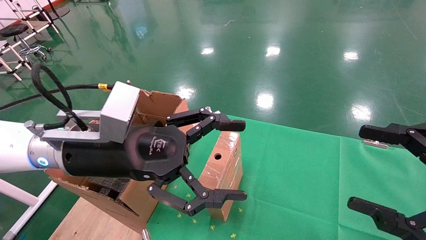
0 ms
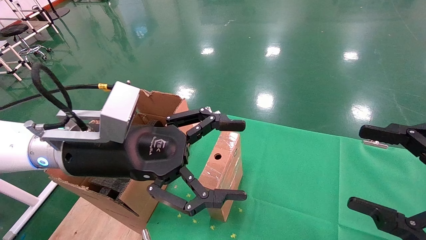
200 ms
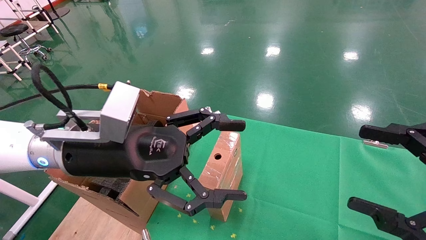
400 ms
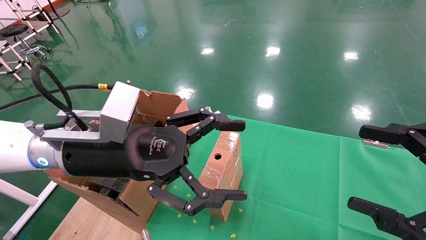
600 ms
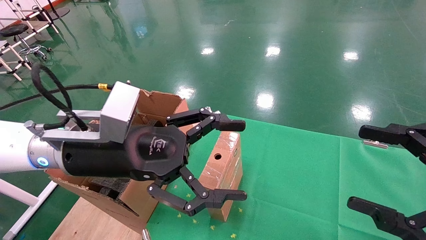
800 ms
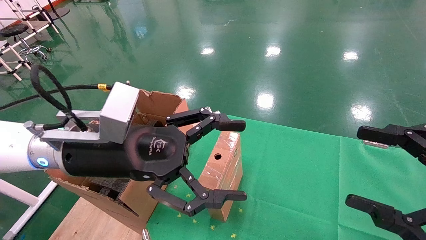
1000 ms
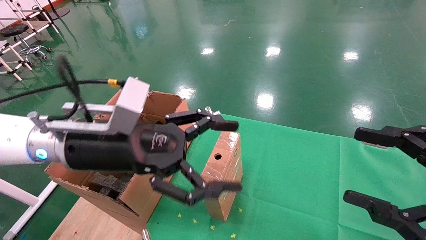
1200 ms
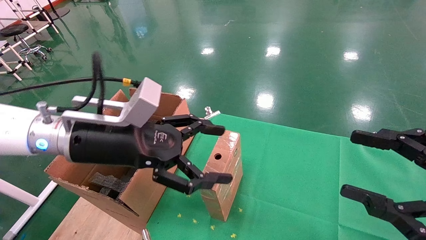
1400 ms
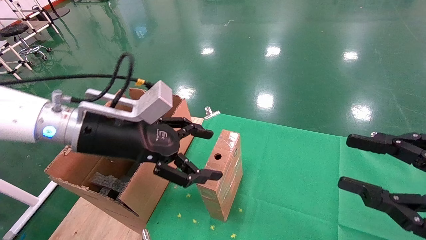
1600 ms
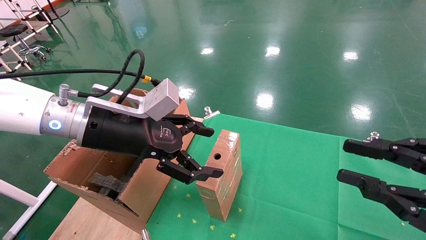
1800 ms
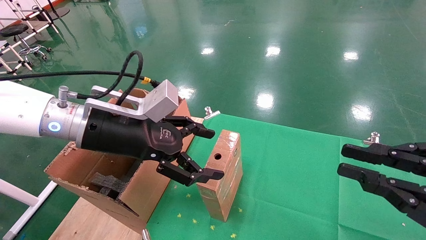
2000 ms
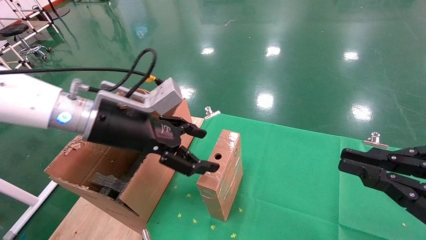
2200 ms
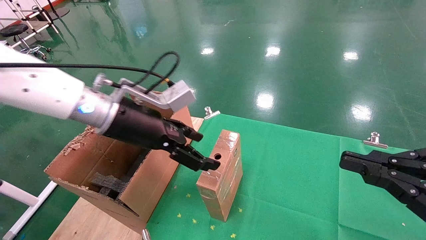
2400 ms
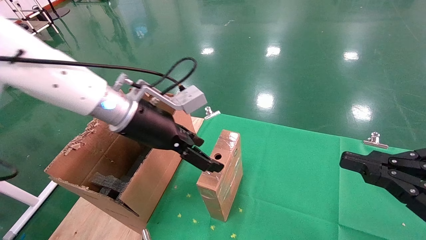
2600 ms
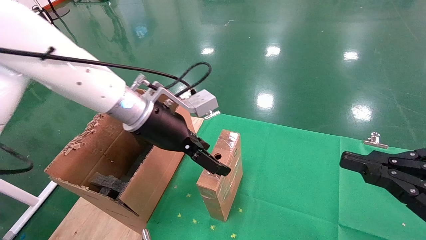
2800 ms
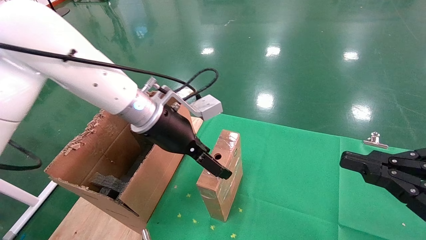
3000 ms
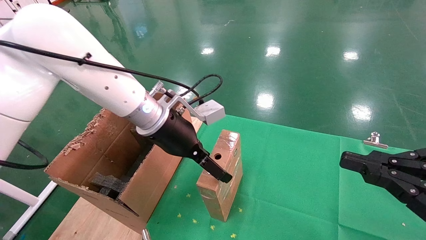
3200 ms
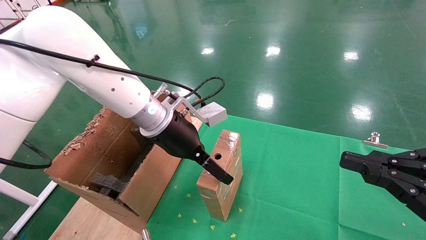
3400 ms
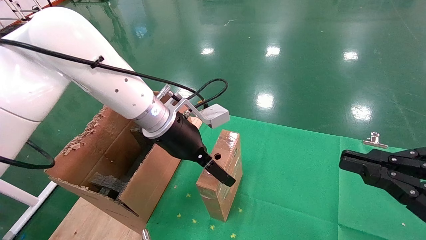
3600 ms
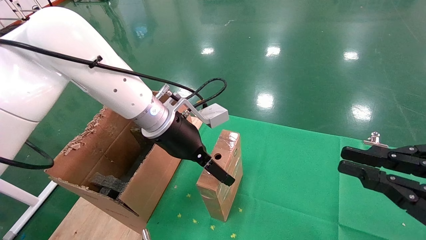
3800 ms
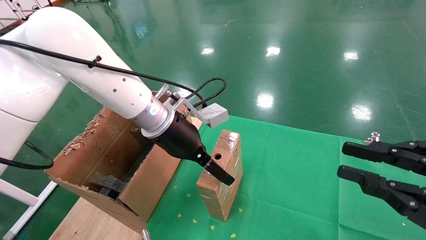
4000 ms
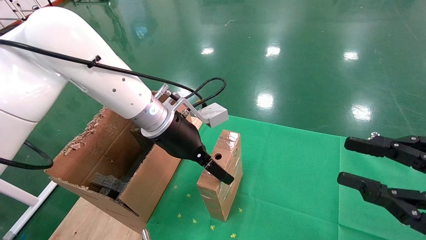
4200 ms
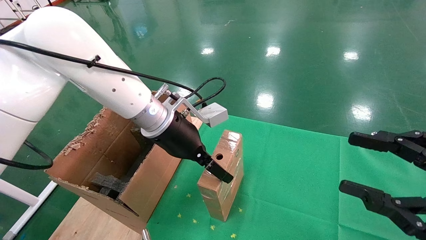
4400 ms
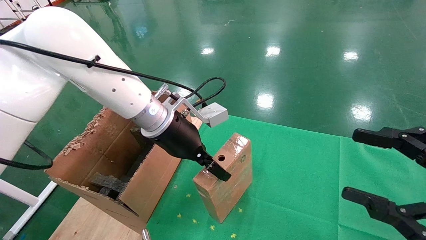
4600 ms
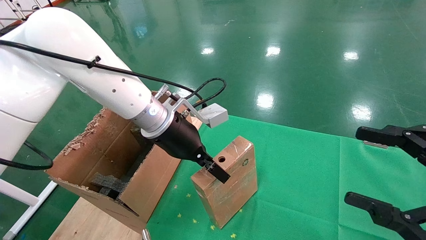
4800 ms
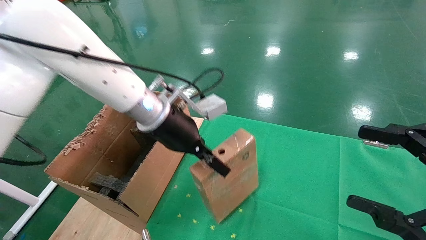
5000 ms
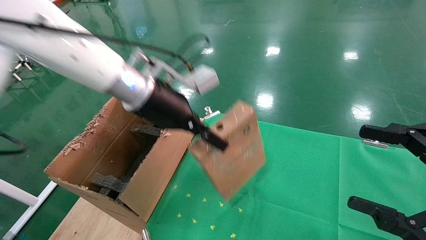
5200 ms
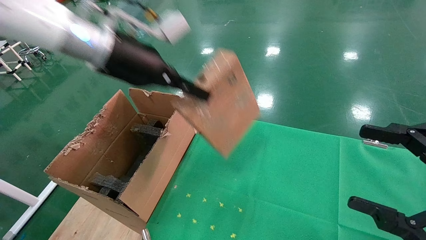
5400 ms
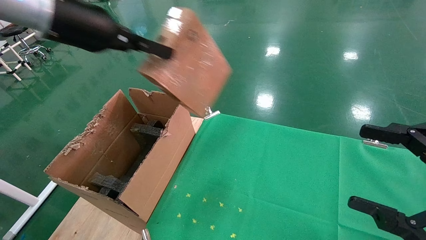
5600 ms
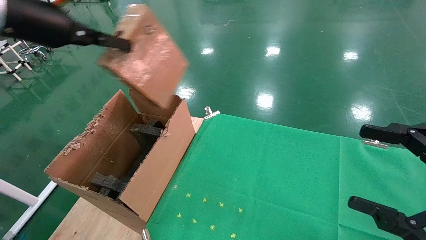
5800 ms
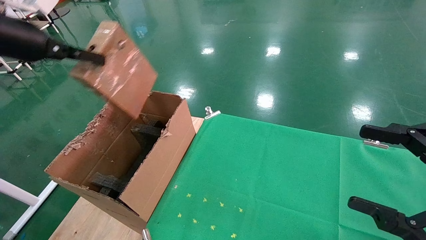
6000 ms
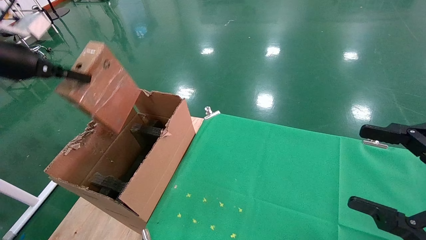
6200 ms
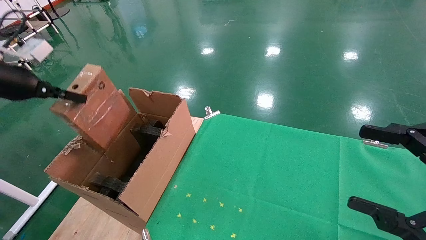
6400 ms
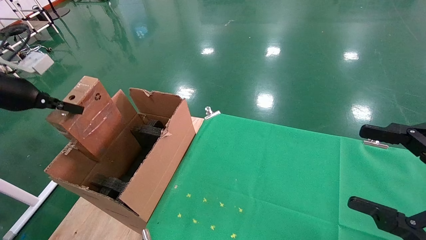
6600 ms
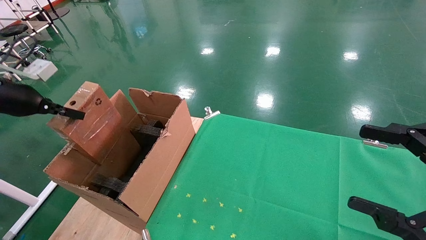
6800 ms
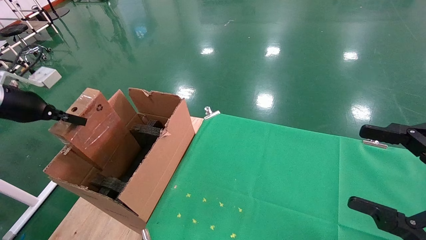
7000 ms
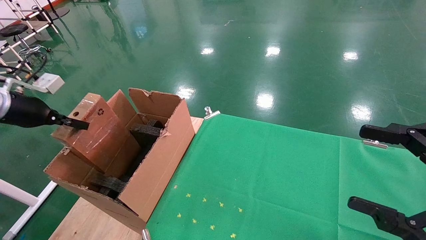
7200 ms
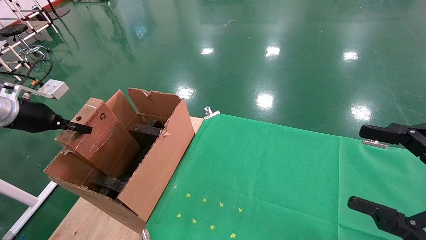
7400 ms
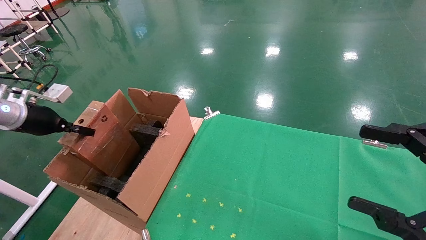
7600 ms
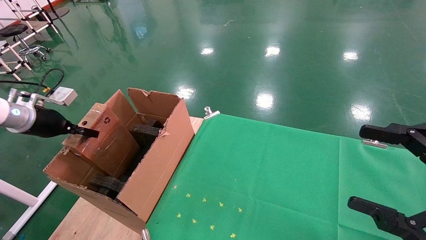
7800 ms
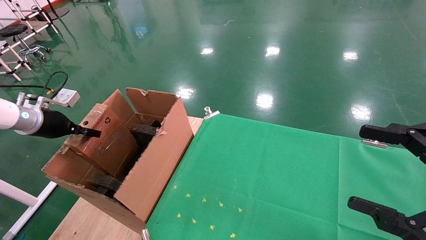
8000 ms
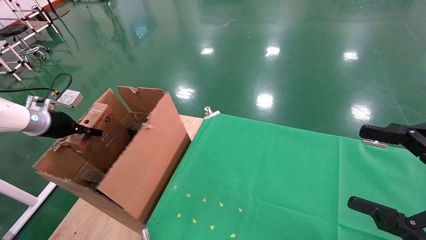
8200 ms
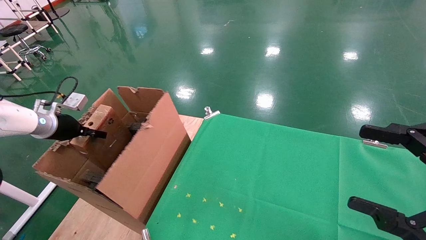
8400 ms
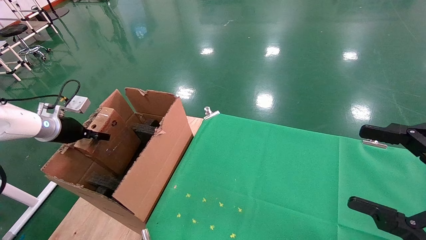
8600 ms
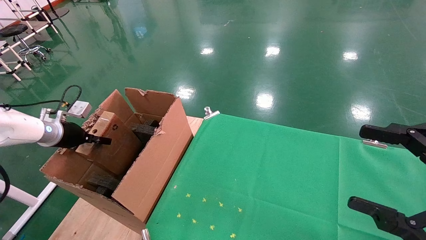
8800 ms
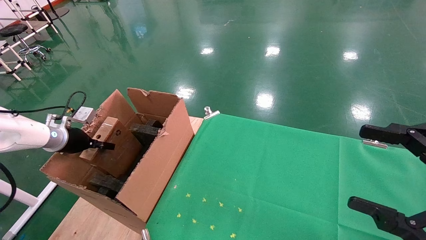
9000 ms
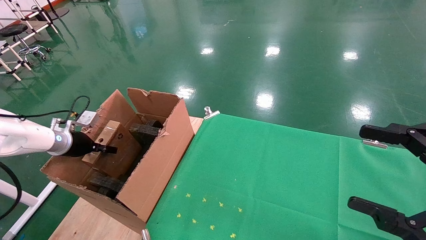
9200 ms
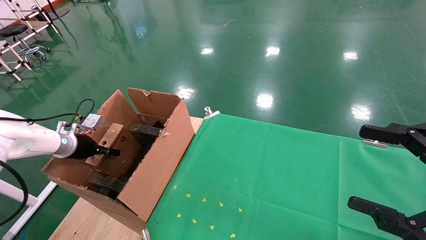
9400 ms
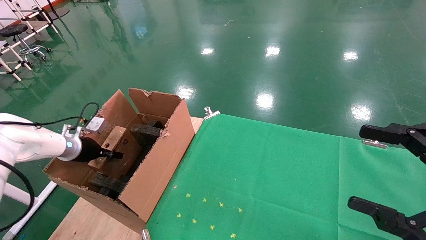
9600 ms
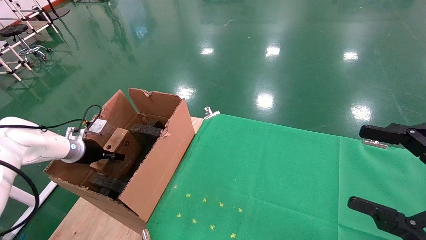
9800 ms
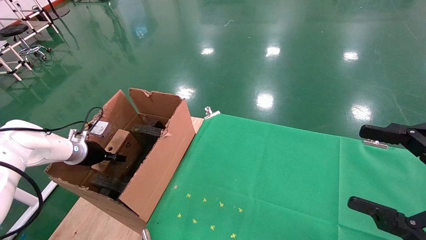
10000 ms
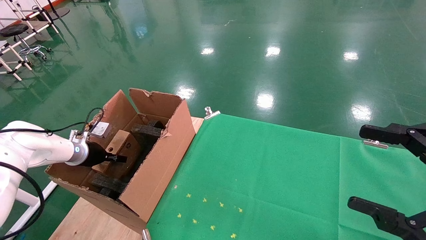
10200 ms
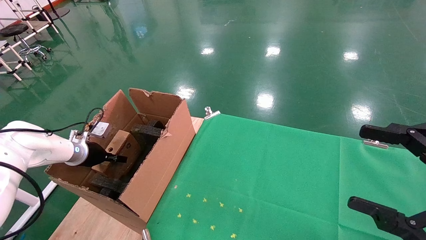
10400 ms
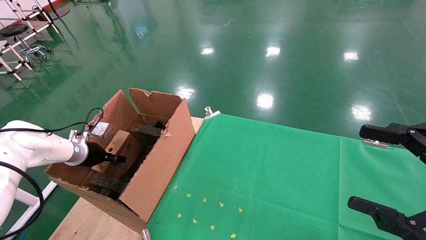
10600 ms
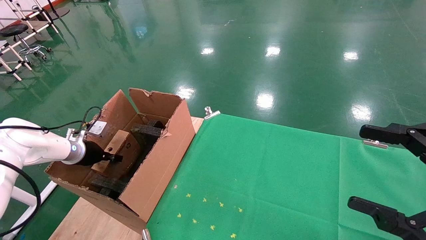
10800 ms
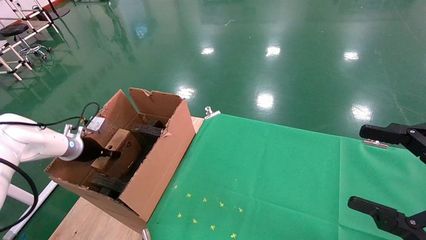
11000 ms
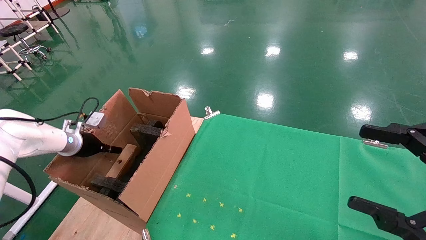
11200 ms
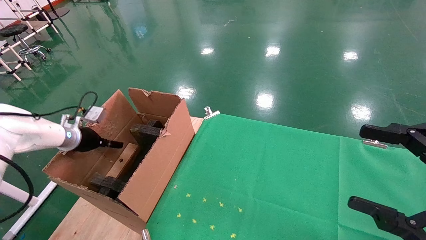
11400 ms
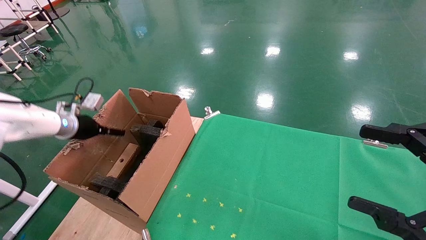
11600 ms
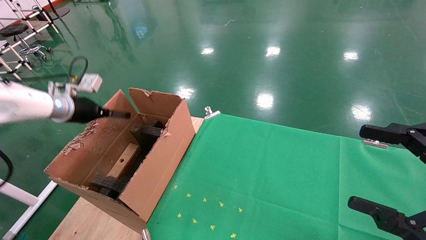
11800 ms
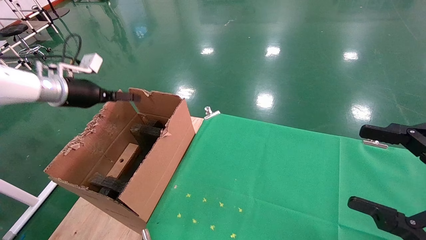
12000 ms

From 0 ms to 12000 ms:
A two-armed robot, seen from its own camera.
Task of the whole recording: using a robotic arm to pick up a cardboard box and palace it the carton.
Step, from 1200 ms to 4800 ms: Pick up the mouse and the power cord paper box.
Step, from 5000 ms to 12000 ms: Place the mouse and the power cord paper box into the container.
From 0 ms to 1600 ms: The right gripper closes.
From 1600 ms to 3000 ms: The right gripper closes up. Meanwhile the left gripper goes approximately 10 cm forward and to the right.
From 3000 ms to 4400 ms: The right gripper opens its fingers.
From 4400 ms to 6000 ms: The right gripper opens its fingers. The left gripper shifts roughly 30 cm to the left and upward, and closes its fingers.
From 6000 ms to 7600 ms: The left gripper heads downward and to the left, covering roughly 20 cm.
From 7600 ms to 9000 ms: The left gripper travels downward and forward by approximately 10 cm.
From 9000 ms to 10400 ms: The left gripper moves downward, roughly 5 cm.
From 10400 ms to 12000 ms: The left gripper travels upward by approximately 20 cm, and opens.

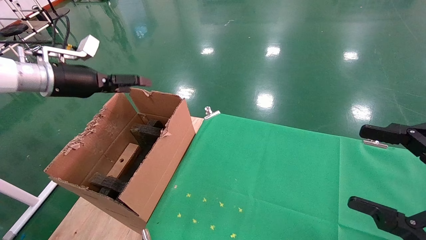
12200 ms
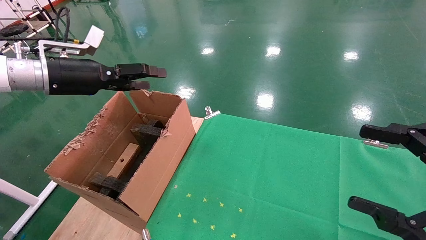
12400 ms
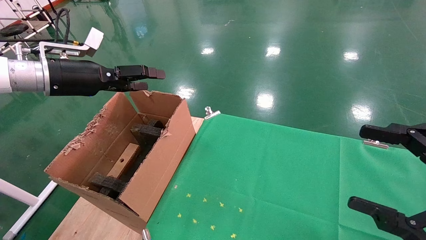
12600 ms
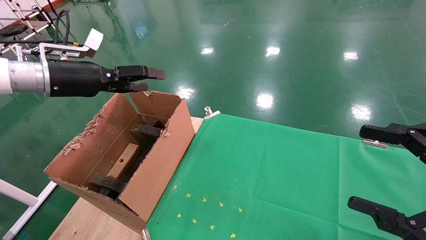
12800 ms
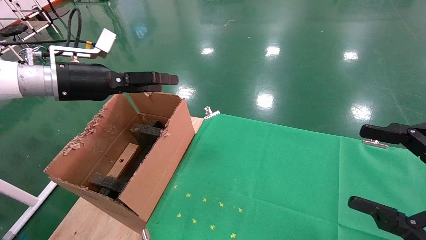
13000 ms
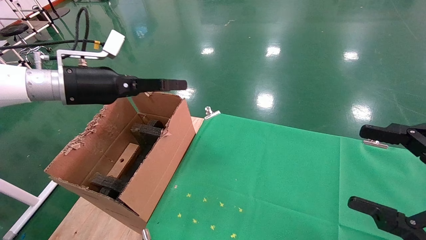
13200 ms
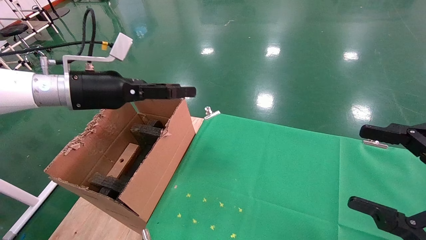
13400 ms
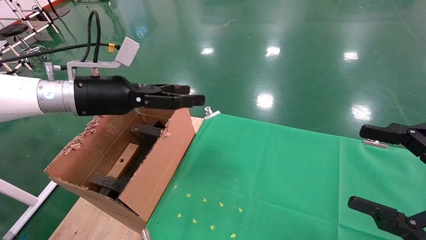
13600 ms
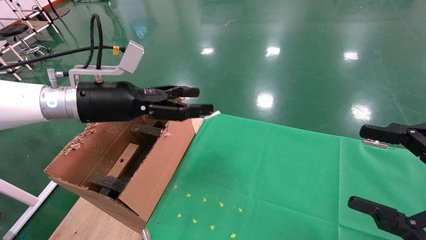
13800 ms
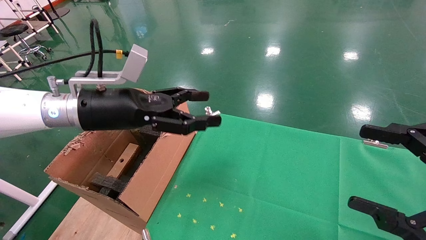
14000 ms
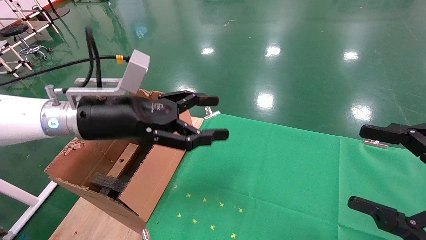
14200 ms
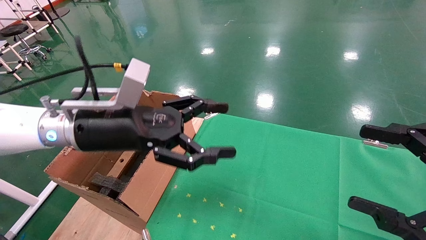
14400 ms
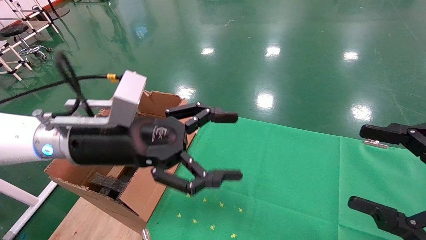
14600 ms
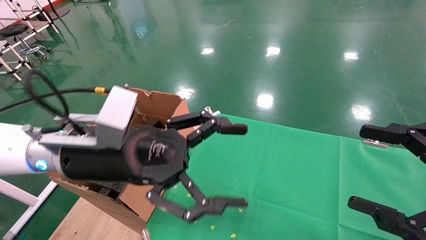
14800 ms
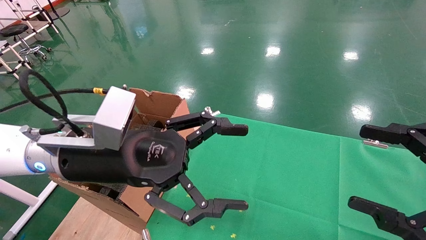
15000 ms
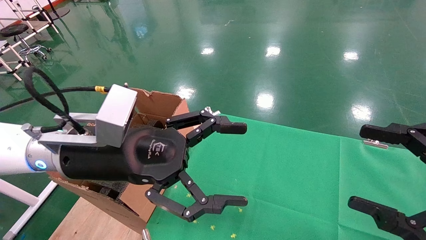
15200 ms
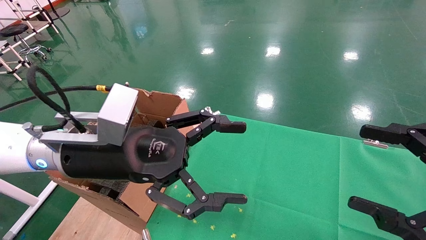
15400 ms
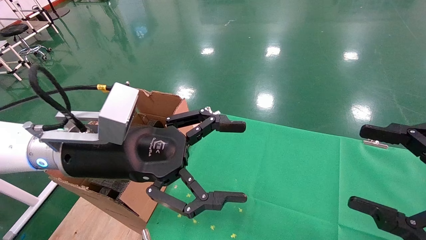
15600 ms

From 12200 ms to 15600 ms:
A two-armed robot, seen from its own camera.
Task of the whole recording: using a robotic arm to pick up a cardboard box and palace it the carton.
From 12200 ms to 13800 ms: The left gripper heads to the right, covering about 15 cm.
From 13800 ms to 15600 ms: The left gripper shifts some 10 cm backward and to the right.

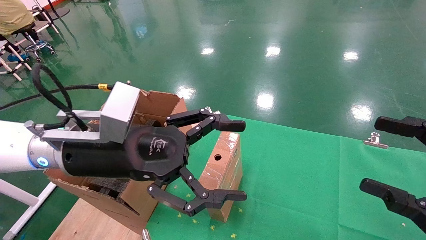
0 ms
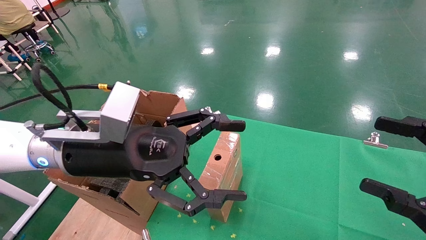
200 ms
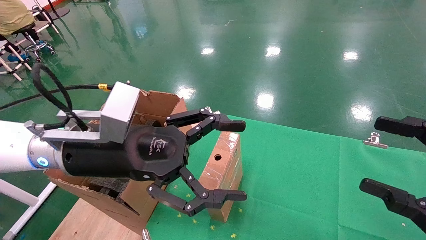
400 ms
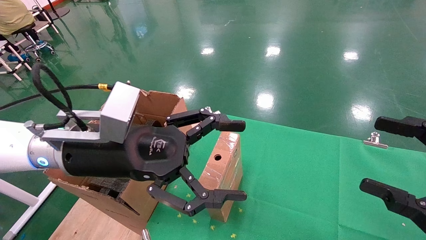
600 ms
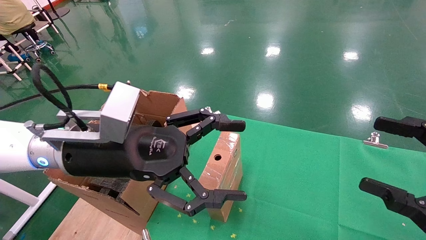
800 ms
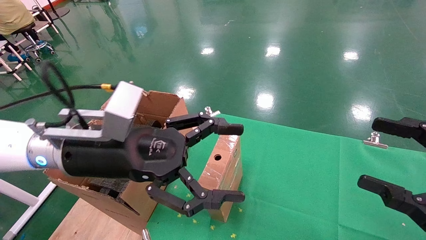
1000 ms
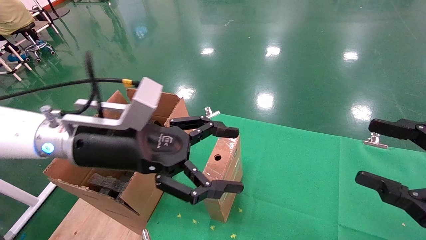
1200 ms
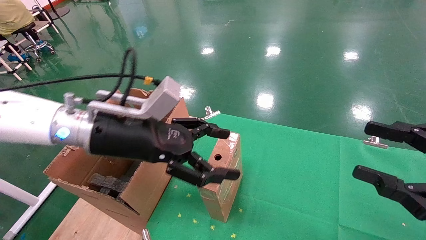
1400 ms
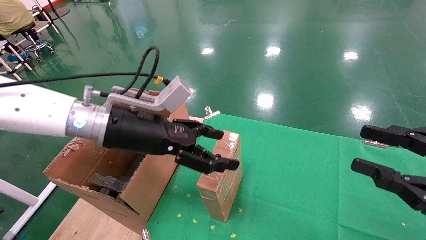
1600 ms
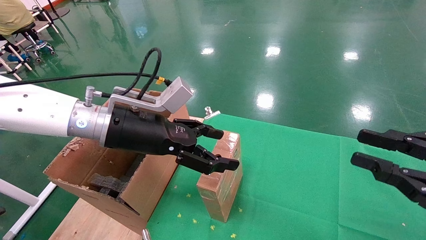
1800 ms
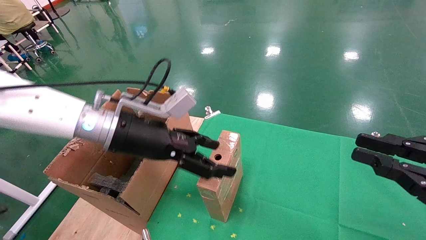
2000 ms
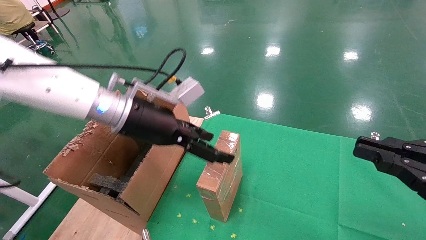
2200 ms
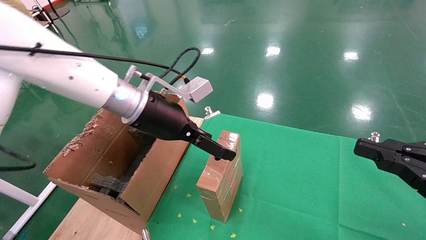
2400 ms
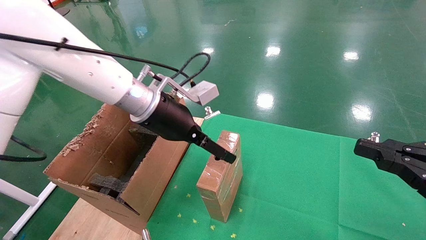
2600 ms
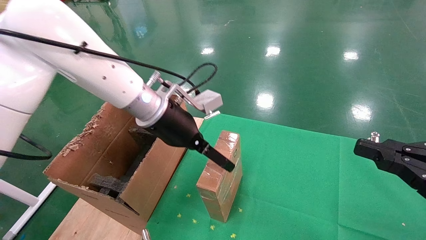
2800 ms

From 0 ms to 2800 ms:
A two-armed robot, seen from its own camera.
Task of the whole recording: using a robotic arm to pick up a cardboard box and palace it the carton.
From 1400 ms to 2800 ms: The left gripper heads forward and to the right, covering approximately 10 cm. Meanwhile the right gripper closes up.
